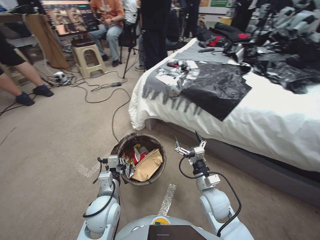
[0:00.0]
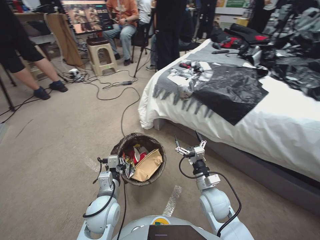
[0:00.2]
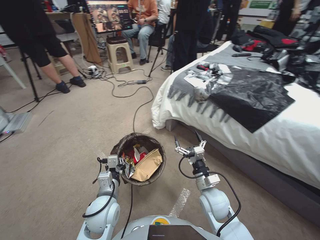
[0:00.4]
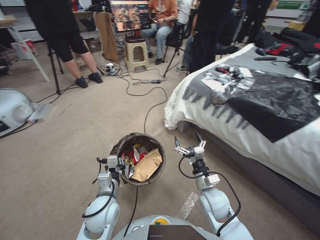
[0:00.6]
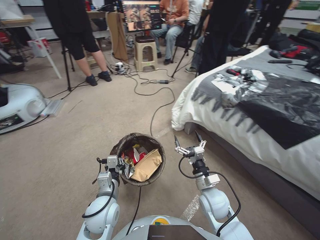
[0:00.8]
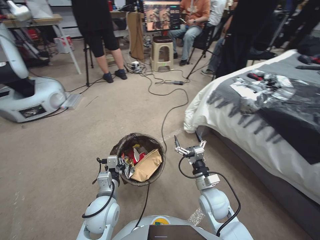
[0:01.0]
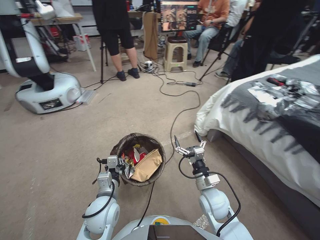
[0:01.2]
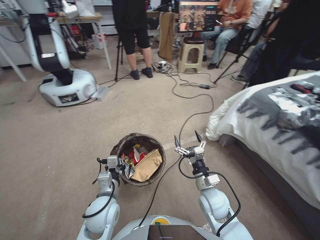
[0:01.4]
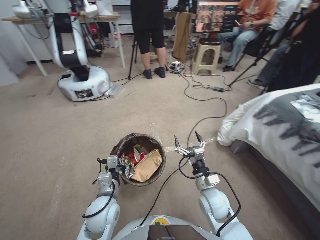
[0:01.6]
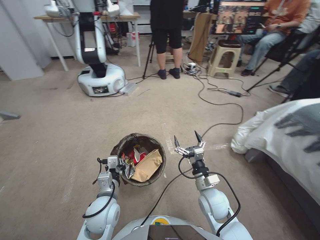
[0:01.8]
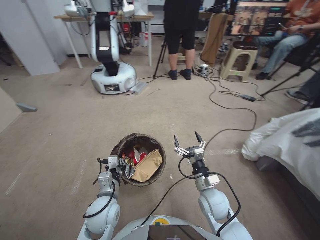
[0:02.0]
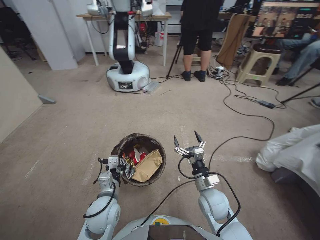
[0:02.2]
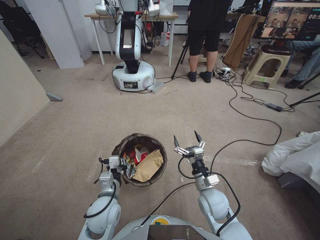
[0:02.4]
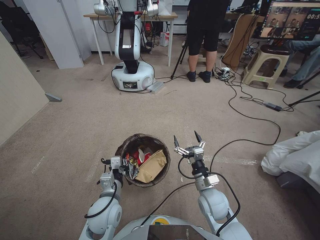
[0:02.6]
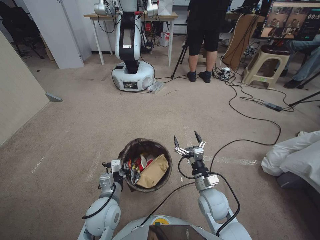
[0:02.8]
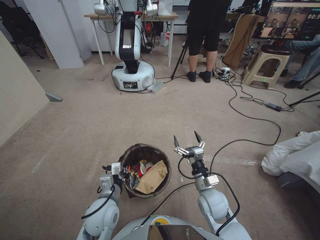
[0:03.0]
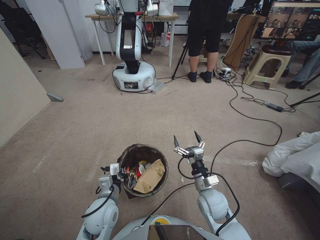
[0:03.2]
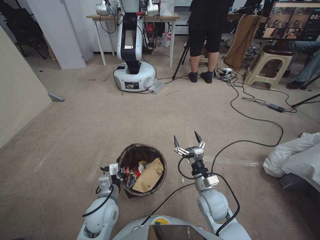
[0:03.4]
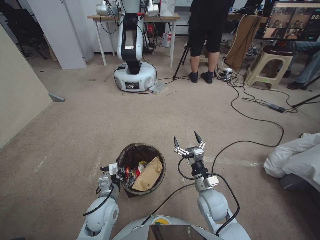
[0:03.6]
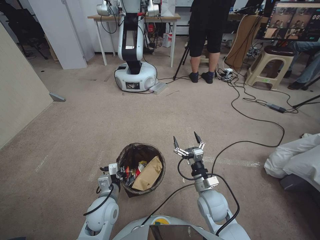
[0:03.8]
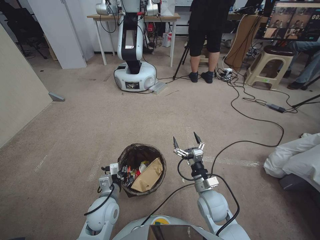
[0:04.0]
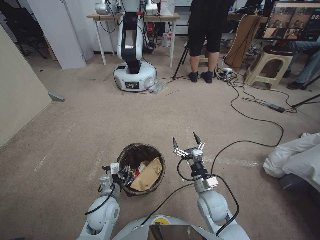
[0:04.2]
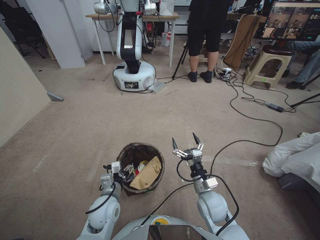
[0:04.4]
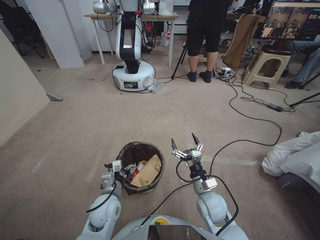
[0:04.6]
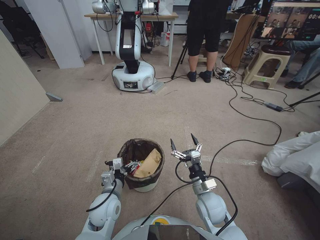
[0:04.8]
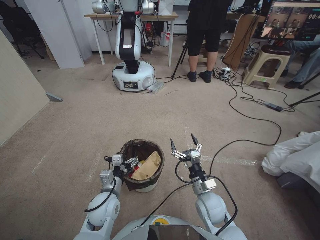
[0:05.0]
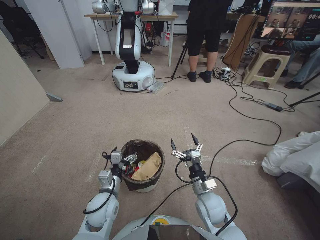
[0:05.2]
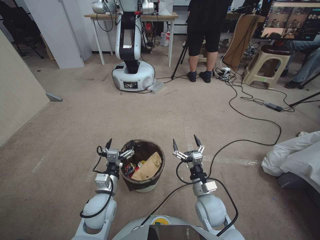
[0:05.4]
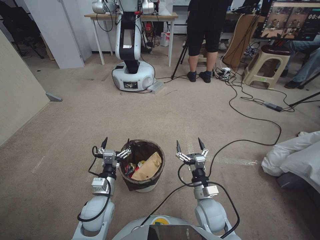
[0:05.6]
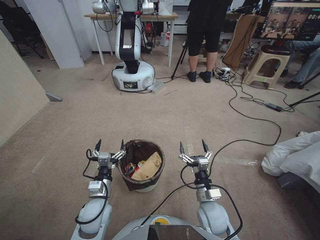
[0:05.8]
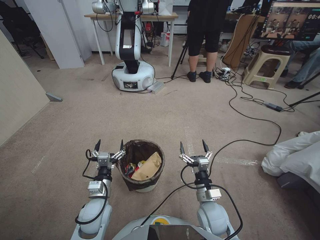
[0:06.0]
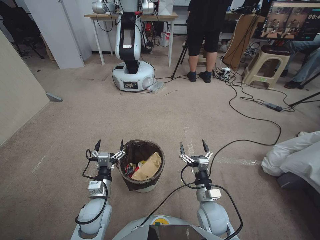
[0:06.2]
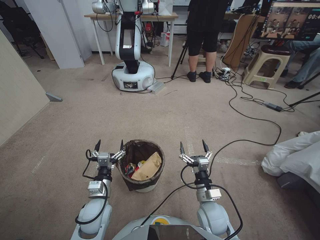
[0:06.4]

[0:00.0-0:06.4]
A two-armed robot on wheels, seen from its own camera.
Task of the whole recording: Pick up the trash bin, then pick up the garbage from the floor and place it into the trash bin.
0:03.2 to 0:04.8: The left gripper opens its fingers.
